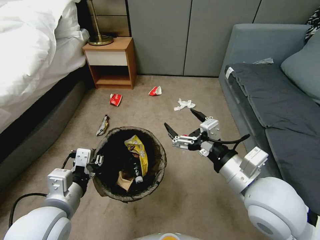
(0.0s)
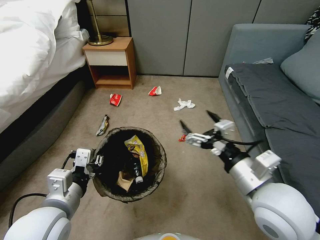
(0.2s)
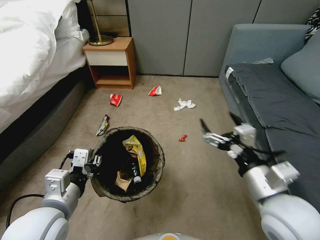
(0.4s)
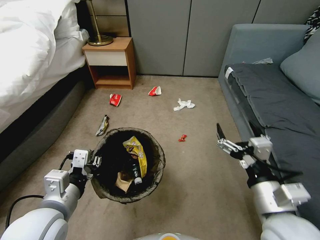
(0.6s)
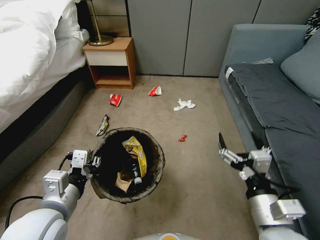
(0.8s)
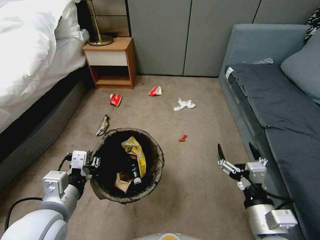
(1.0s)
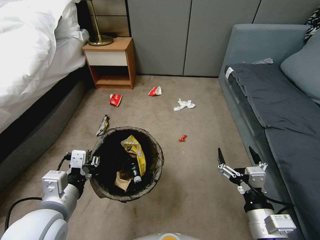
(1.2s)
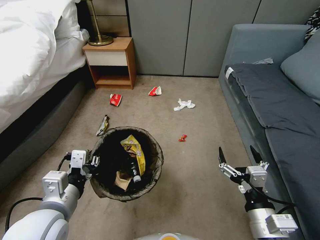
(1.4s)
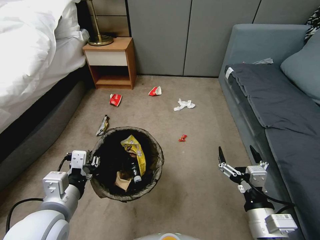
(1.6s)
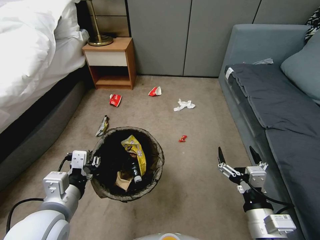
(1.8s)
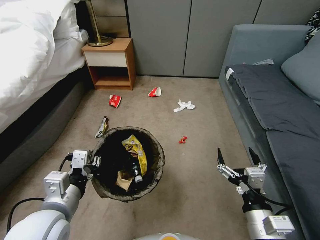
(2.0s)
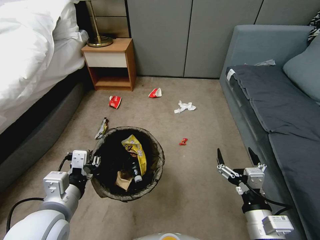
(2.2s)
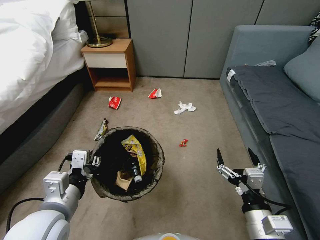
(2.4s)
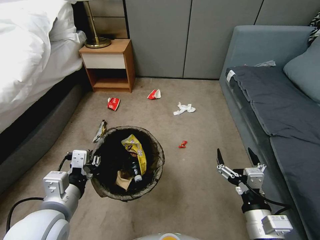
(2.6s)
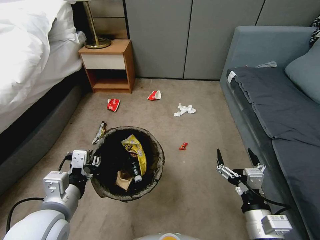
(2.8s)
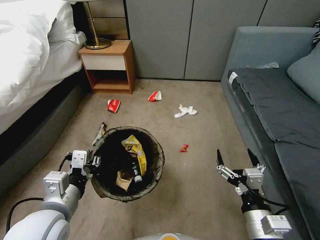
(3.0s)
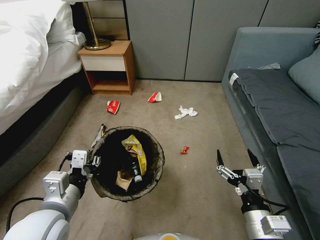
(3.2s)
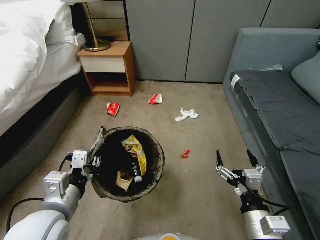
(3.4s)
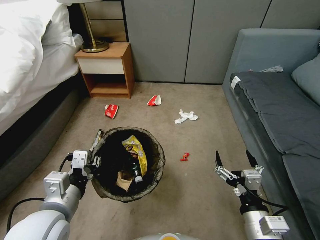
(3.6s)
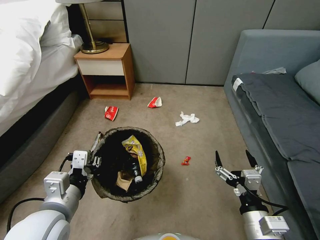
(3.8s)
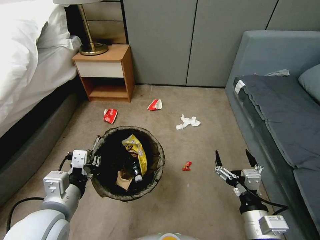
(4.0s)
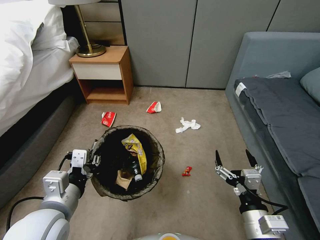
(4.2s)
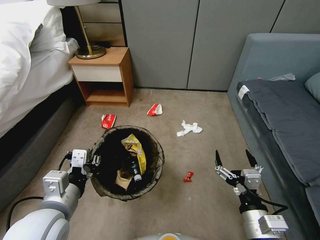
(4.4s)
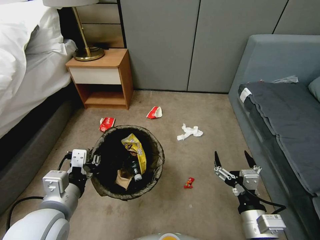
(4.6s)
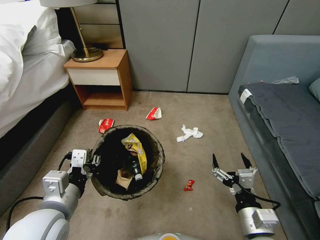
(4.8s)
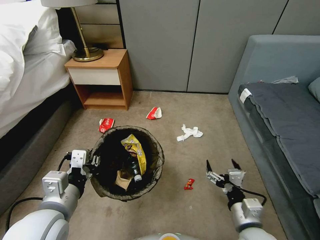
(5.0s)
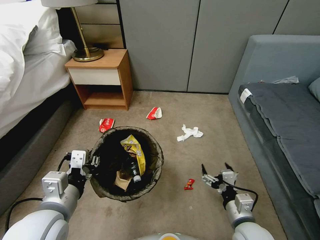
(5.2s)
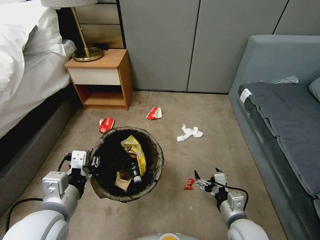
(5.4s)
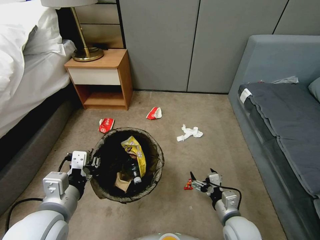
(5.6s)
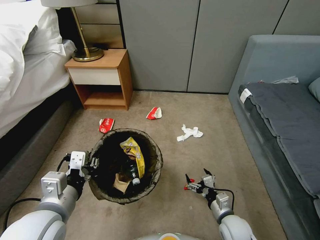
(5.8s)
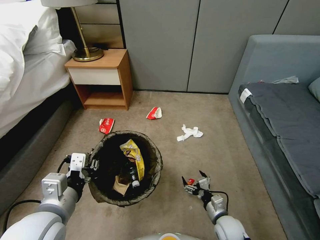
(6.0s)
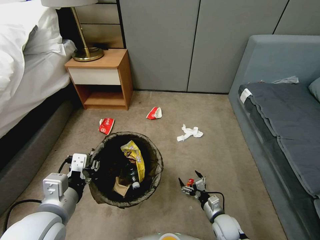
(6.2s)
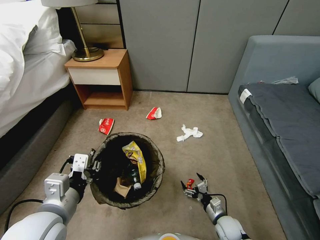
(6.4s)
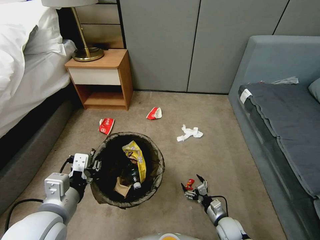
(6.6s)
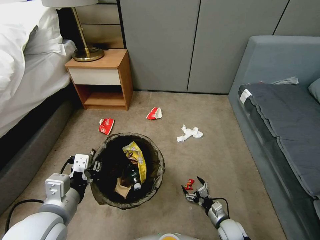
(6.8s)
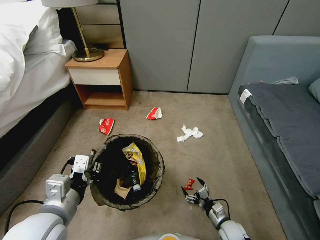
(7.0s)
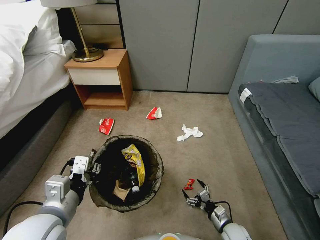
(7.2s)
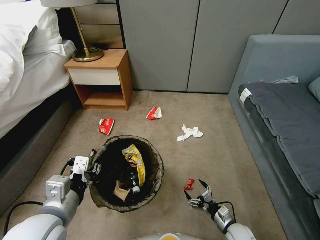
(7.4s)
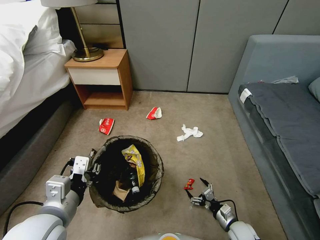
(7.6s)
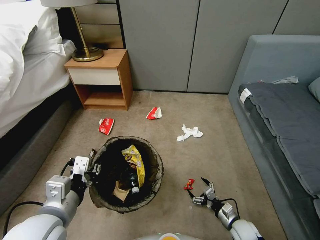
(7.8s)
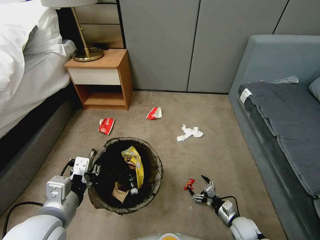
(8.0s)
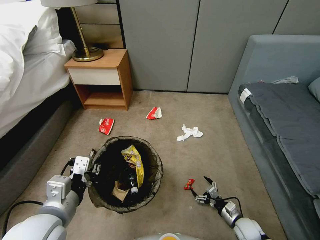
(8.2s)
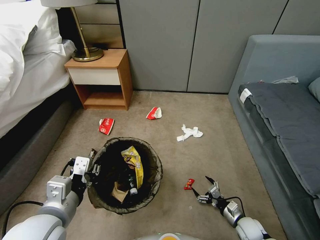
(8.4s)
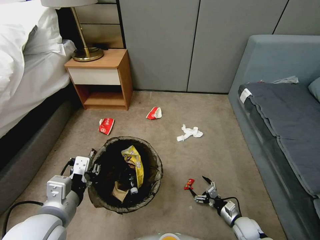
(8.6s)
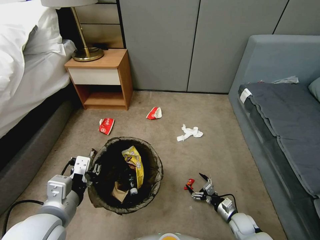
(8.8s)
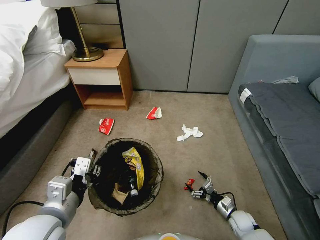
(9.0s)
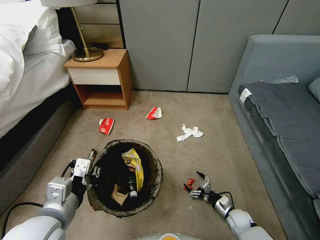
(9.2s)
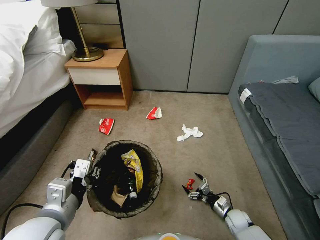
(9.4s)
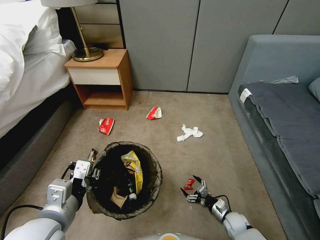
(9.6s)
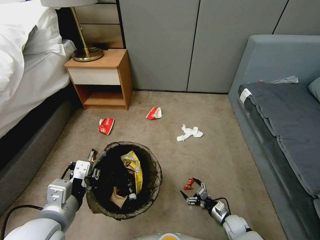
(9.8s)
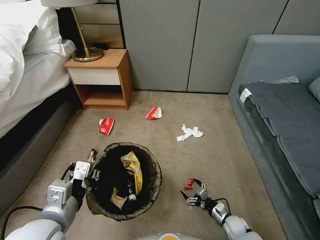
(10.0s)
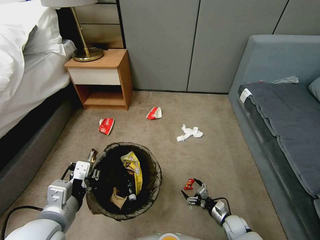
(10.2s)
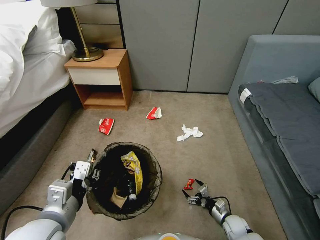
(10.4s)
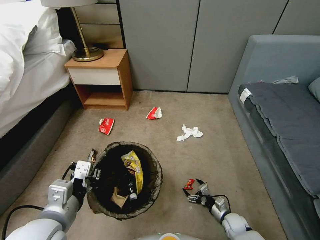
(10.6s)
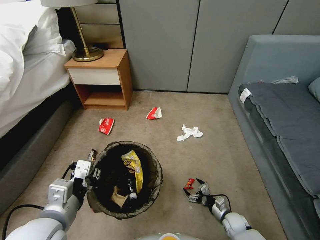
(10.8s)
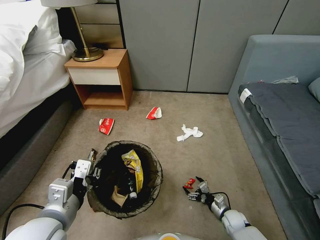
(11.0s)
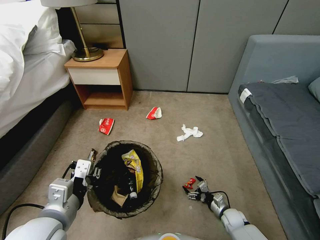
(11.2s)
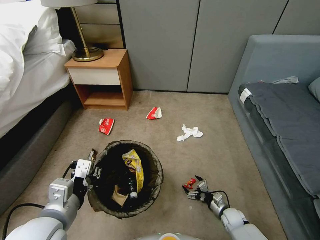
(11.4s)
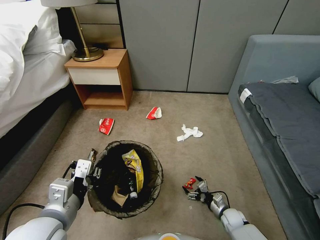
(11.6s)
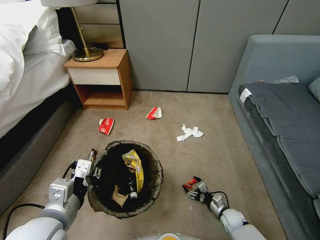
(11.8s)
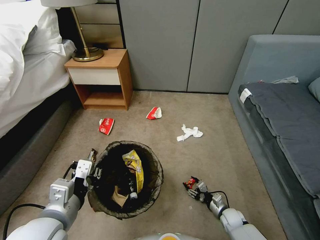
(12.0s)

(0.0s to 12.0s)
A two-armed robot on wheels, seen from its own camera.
Task of the whole recording: Pick up the trash bin, then pick up the garbage from the floor and place it into the trash bin.
0.0s - 1.6s: The right gripper travels downward and backward by approximately 15 cm.
1.6s - 3.0s: The two grippers keep their place.
4.4s - 6.0s: The right gripper shifts some 25 cm downward and forward.
6.0s - 7.6s: The right gripper goes some 10 cm to the right and downward.
7.6s - 9.0s: The right gripper ends up some 5 cm from where it was.
9.0s - 12.0s: There are only small adjustments of the grippers.

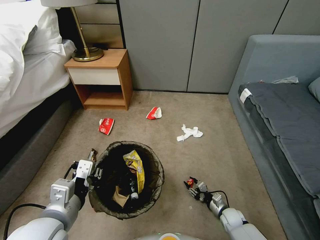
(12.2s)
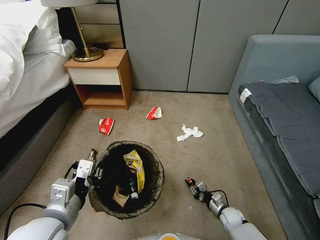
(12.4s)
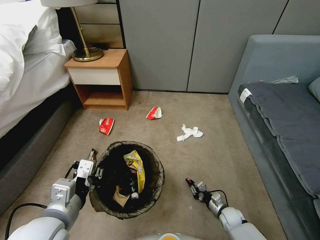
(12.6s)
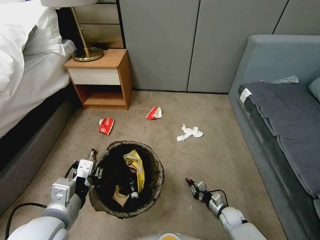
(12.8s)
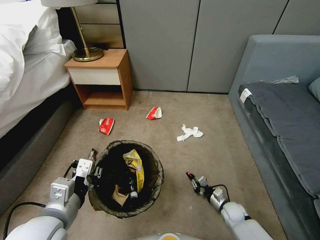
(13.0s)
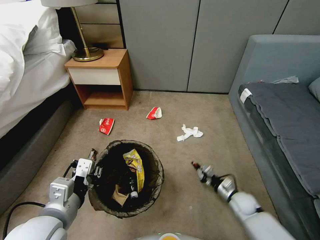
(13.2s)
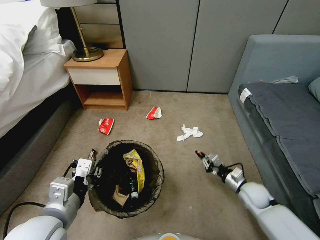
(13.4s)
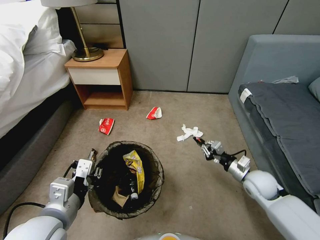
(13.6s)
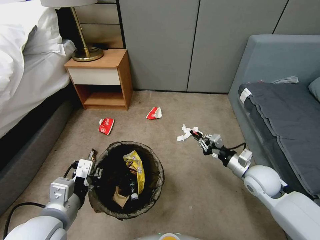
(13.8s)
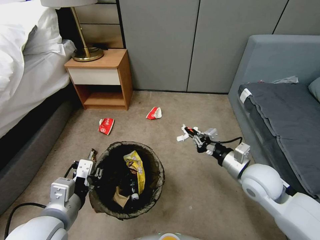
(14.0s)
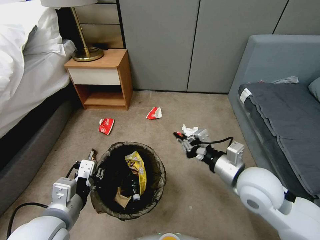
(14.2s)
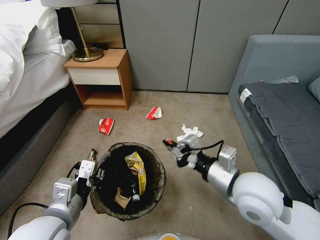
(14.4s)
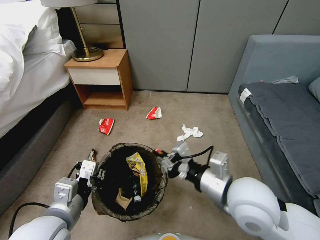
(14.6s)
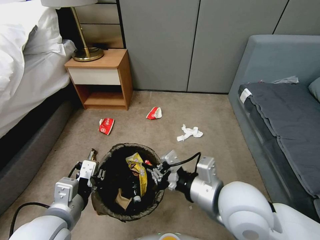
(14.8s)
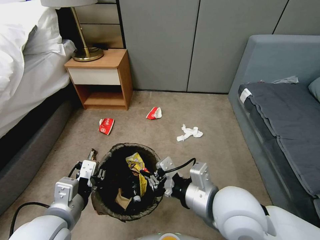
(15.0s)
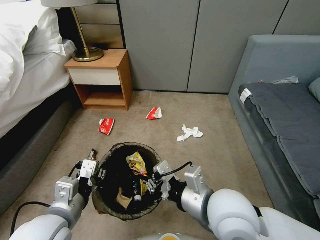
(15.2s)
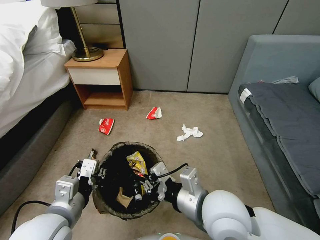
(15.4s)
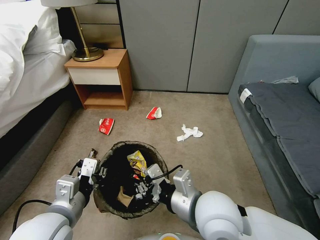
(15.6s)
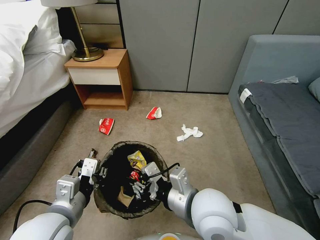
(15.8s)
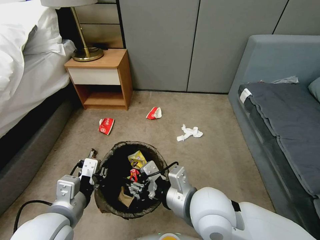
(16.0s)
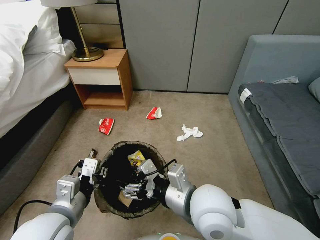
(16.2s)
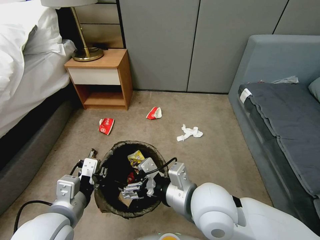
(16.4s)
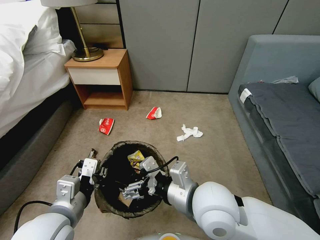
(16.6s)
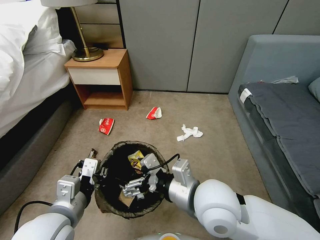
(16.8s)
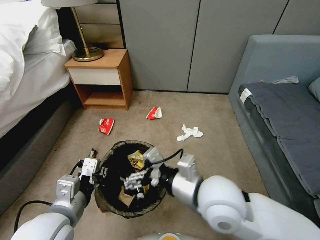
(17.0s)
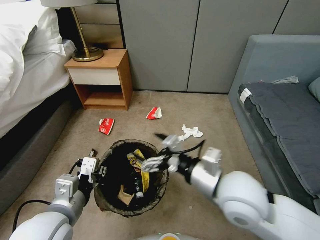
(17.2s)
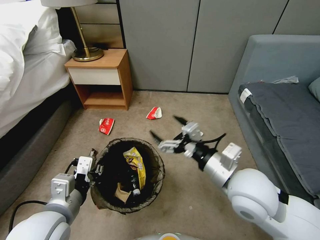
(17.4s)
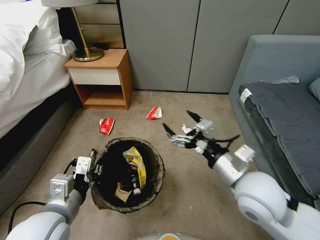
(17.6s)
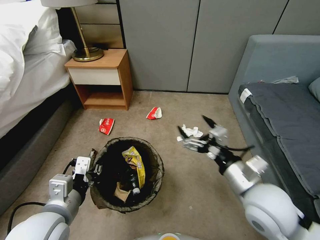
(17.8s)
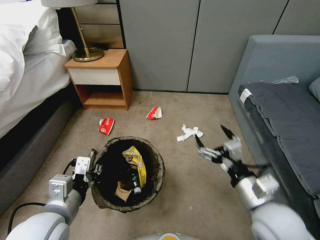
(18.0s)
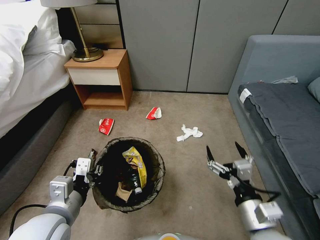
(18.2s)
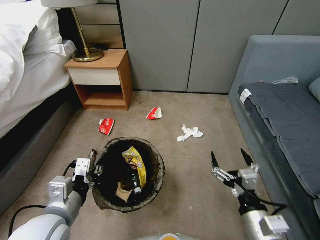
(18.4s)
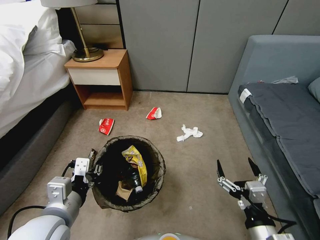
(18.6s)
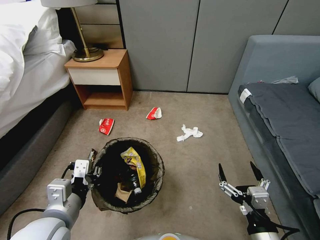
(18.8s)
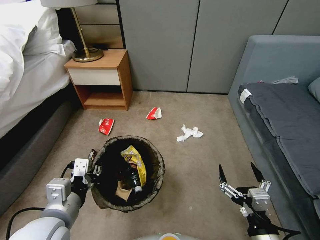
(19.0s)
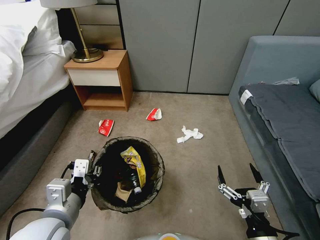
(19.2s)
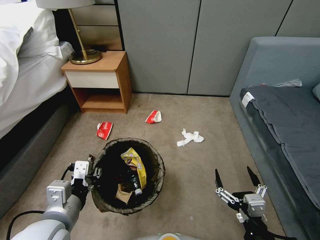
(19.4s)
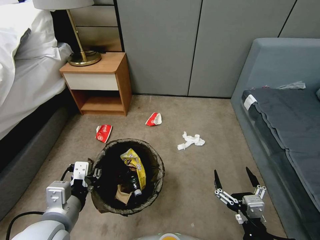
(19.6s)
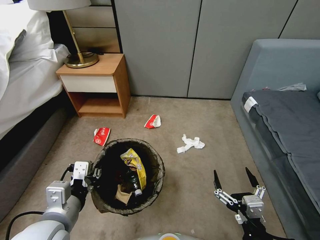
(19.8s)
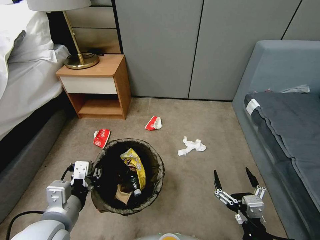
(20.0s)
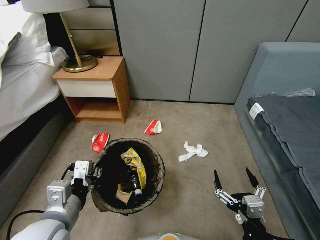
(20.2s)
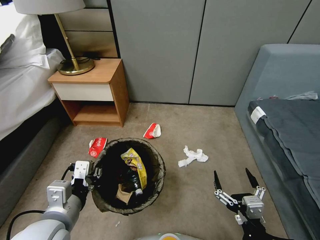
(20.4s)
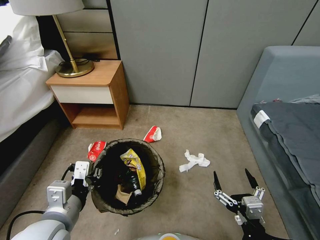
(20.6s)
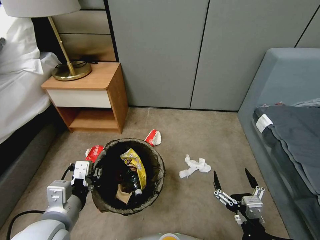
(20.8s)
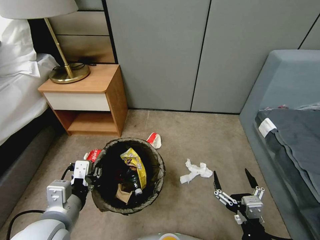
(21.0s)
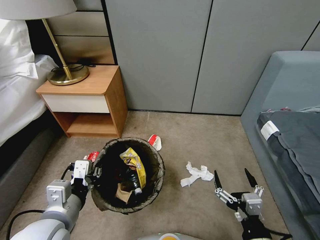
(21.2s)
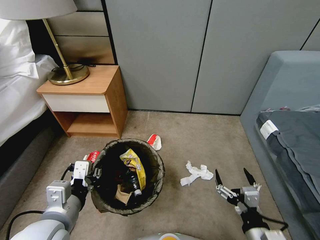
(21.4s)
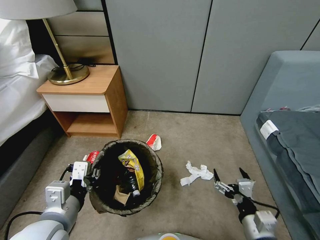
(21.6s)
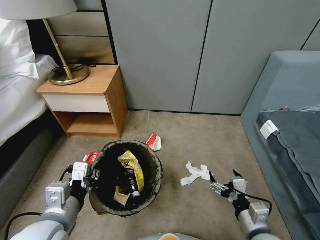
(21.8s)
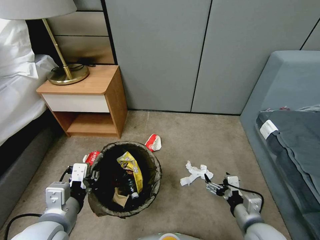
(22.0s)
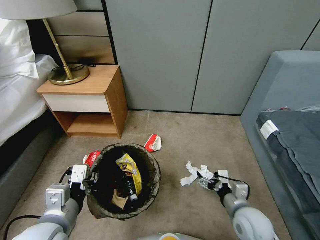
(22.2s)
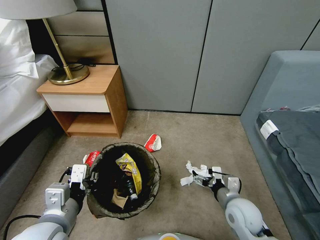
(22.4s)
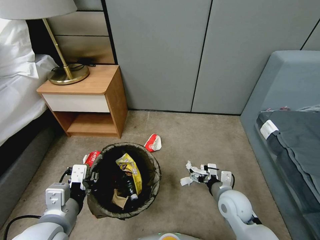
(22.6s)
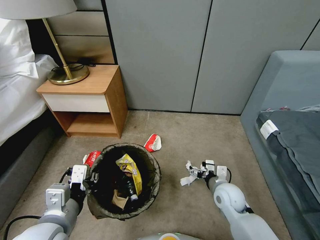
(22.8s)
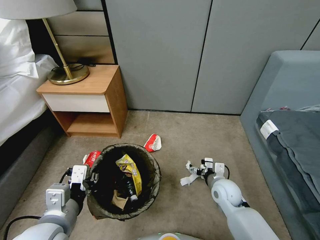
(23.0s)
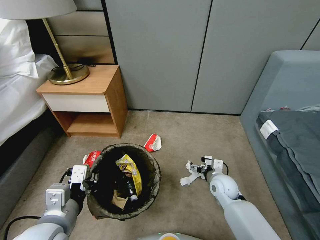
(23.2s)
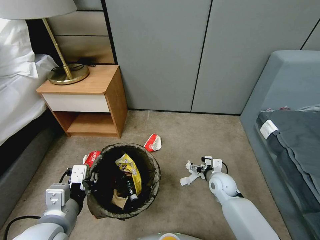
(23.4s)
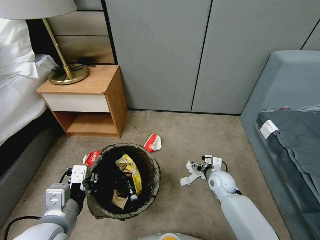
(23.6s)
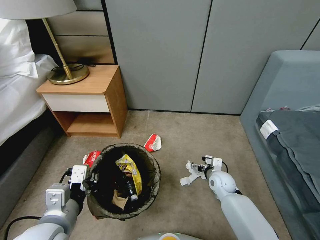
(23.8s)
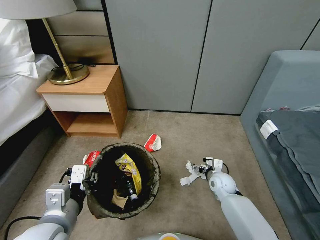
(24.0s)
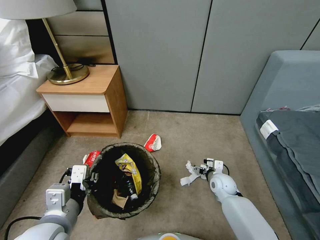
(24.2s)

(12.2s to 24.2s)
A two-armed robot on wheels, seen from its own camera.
Task of the whole recording: Pick up the trash bin, then pick up the garbage from the floor and place it into the trash bin.
12.2s - 13.8s: The right gripper travels upward by approximately 30 cm, and closes up.
13.8s - 15.2s: The right gripper travels to the left, upward and backward by some 25 cm.
15.2s - 16.6s: The right gripper opens its fingers.
16.6s - 18.2s: The right gripper is displaced to the right, downward and backward by some 15 cm.
18.2s - 19.8s: The right gripper heads backward, covering roughly 10 cm.
21.2s - 22.6s: The right gripper is displaced forward by about 20 cm.
22.6s - 24.2s: The right gripper travels forward and downward by some 15 cm.
